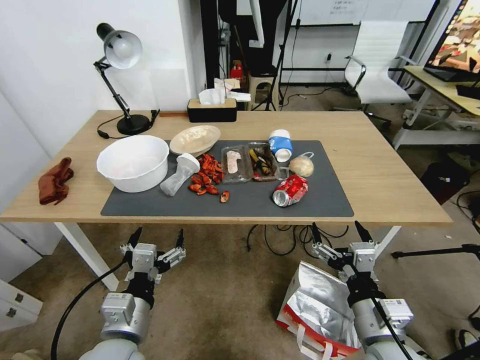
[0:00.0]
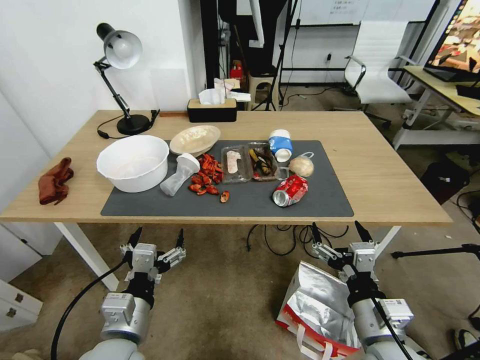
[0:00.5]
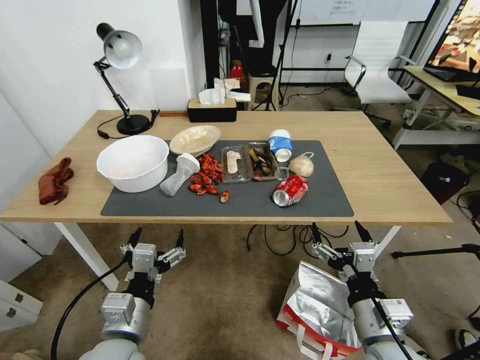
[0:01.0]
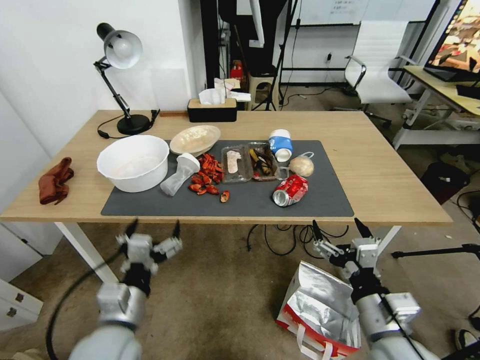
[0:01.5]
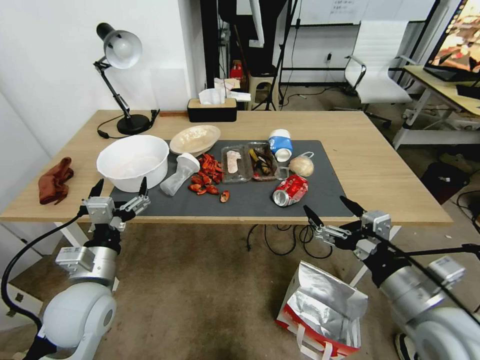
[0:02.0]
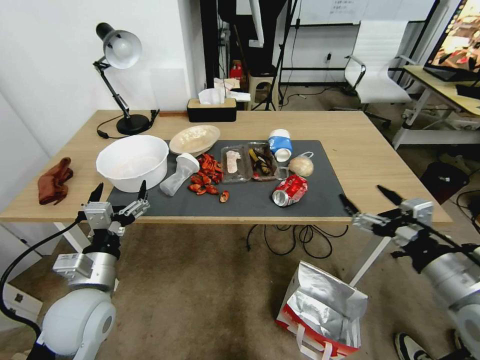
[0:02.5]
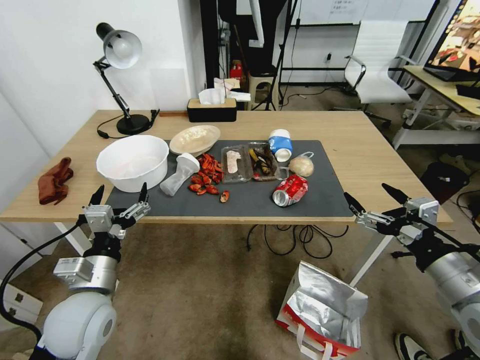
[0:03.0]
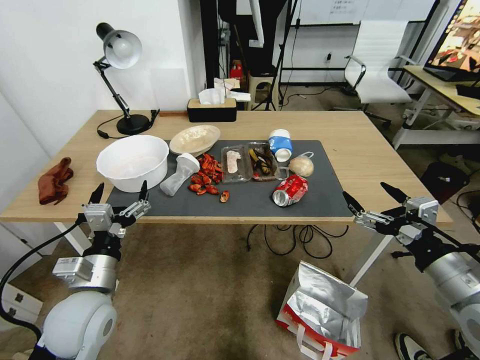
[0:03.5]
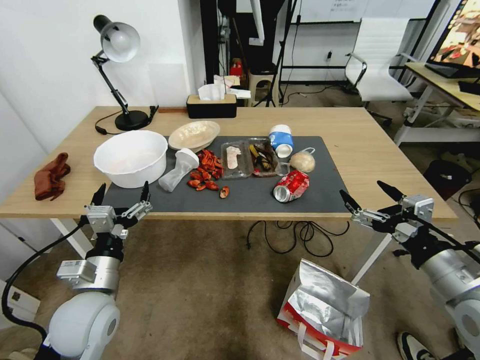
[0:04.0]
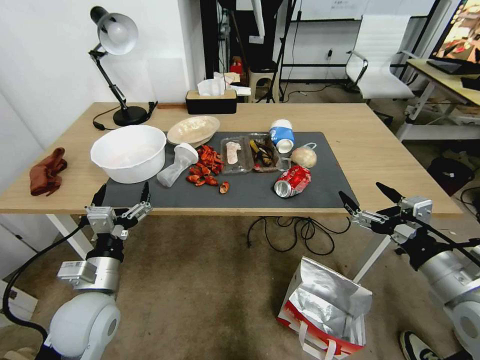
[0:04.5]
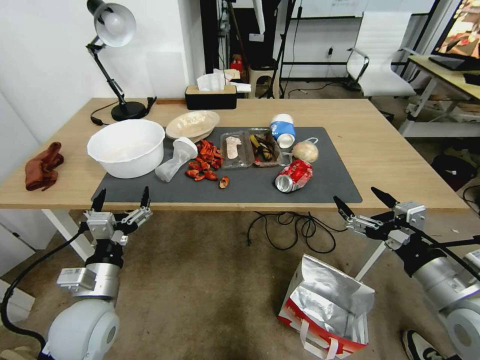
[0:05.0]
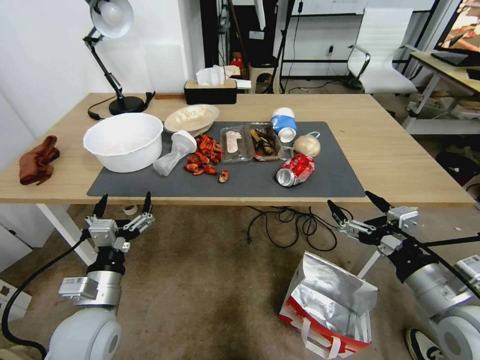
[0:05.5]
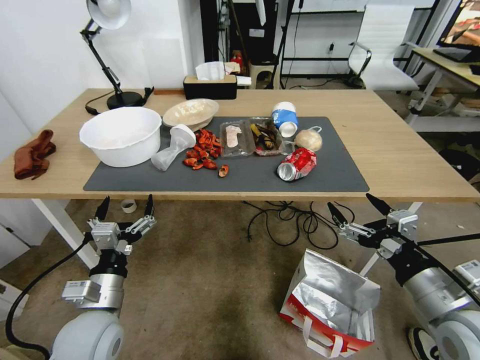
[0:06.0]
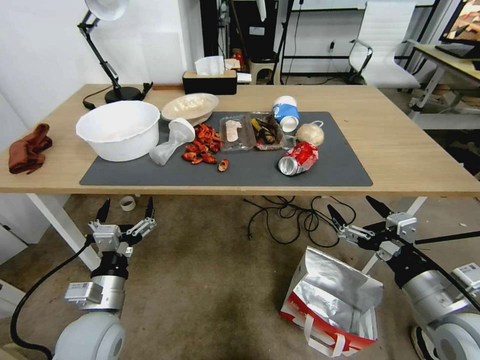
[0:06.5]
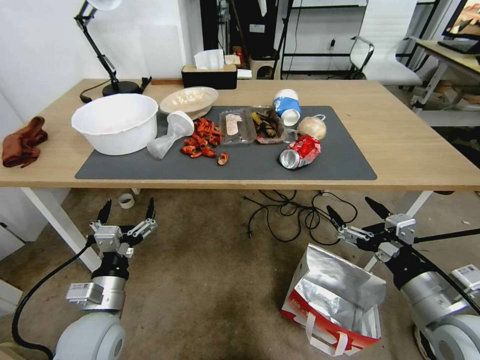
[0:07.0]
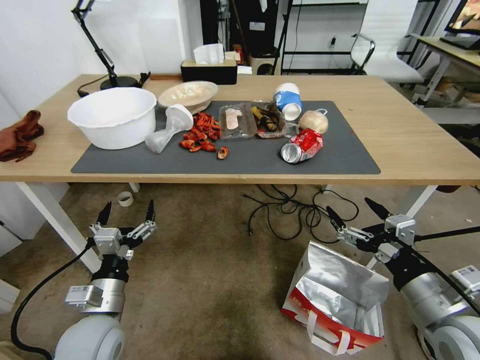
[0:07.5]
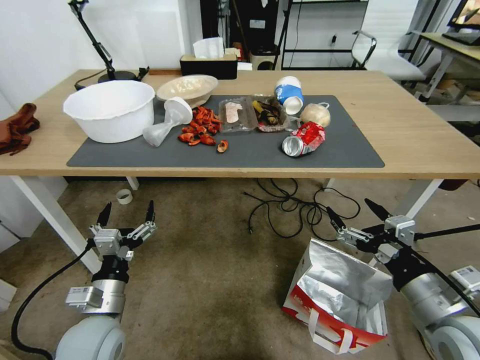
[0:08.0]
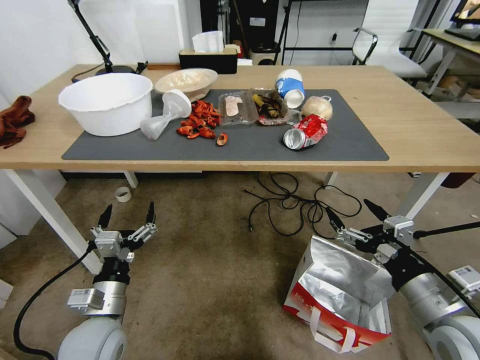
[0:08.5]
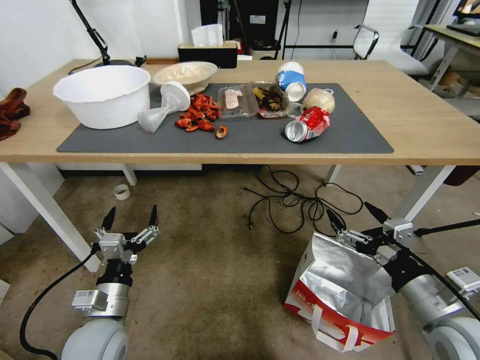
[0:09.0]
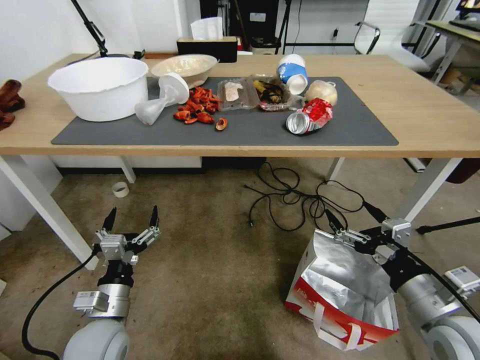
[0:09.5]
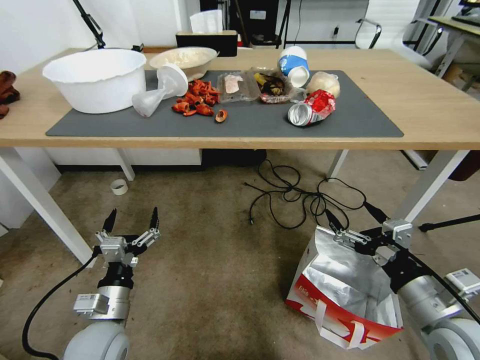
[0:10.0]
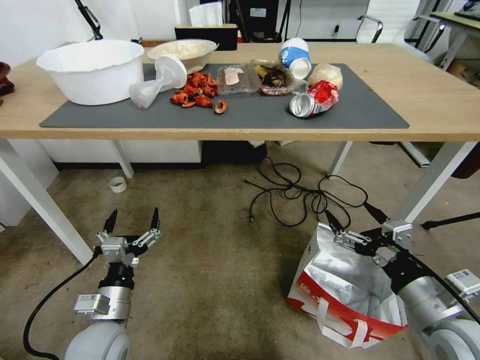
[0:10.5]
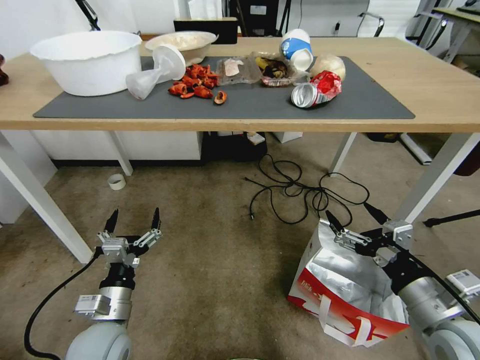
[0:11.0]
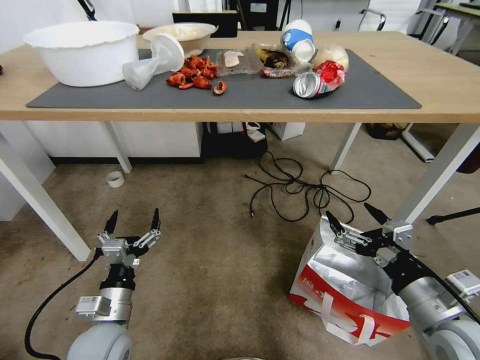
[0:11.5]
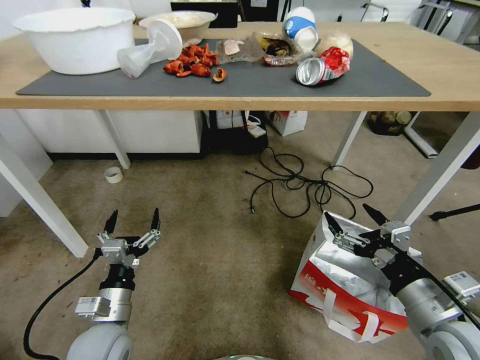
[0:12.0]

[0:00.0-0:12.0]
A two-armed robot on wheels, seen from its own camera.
Task of the whole recording: Pick up the food delivery bag from the floor and place it on the table.
0:02.0 to 0:04.0: The right gripper is displaced to the right by approximately 5 cm.

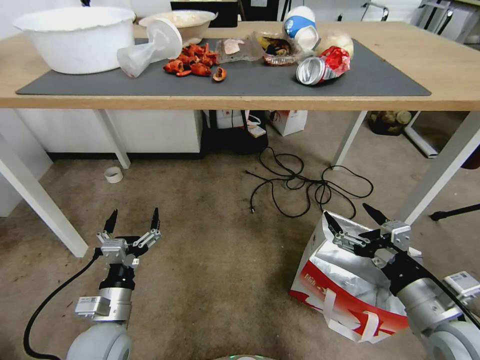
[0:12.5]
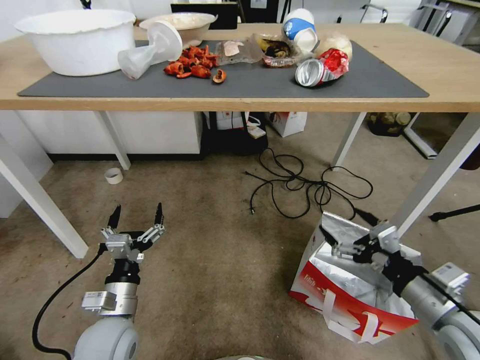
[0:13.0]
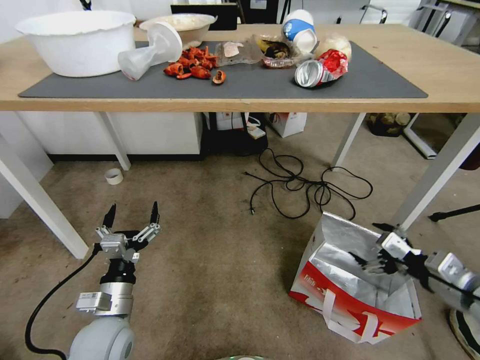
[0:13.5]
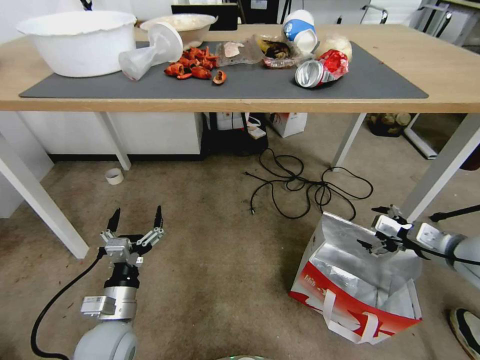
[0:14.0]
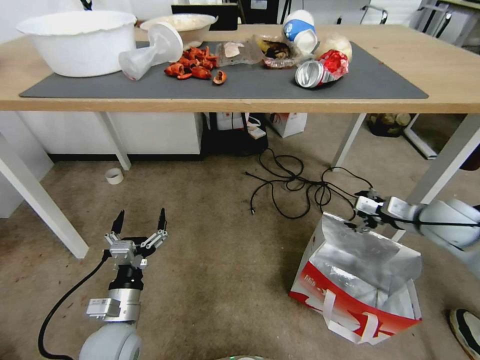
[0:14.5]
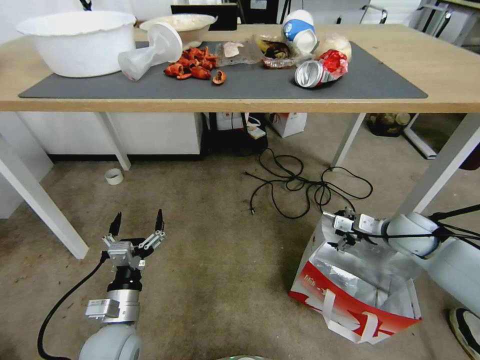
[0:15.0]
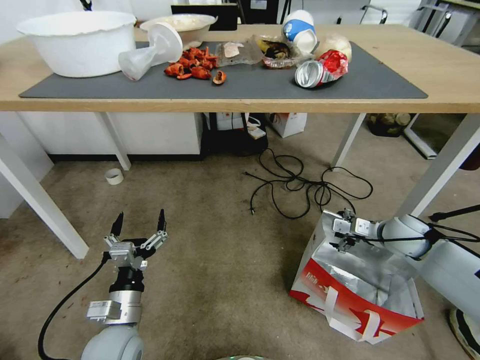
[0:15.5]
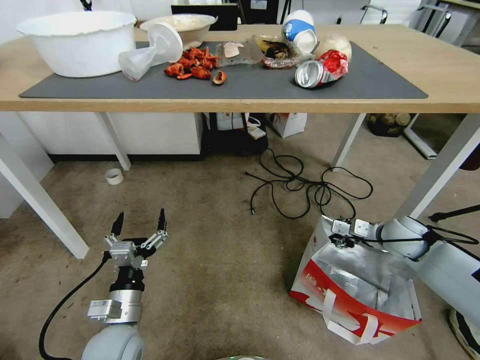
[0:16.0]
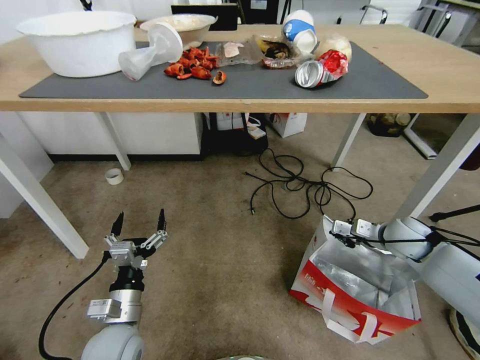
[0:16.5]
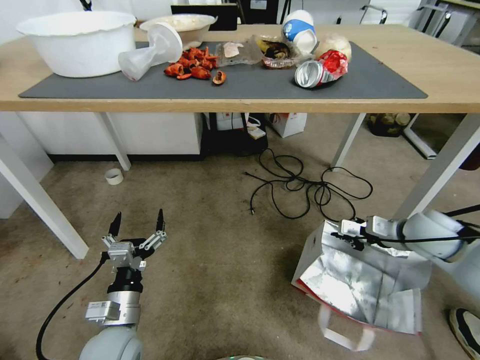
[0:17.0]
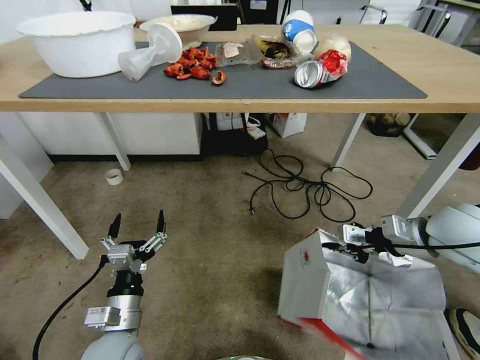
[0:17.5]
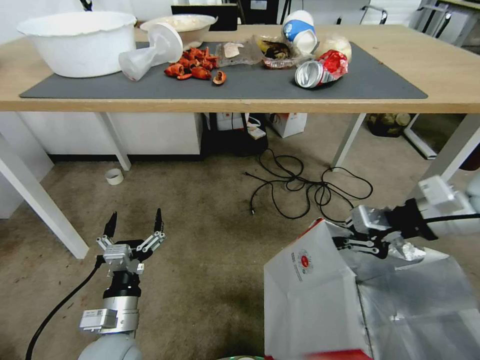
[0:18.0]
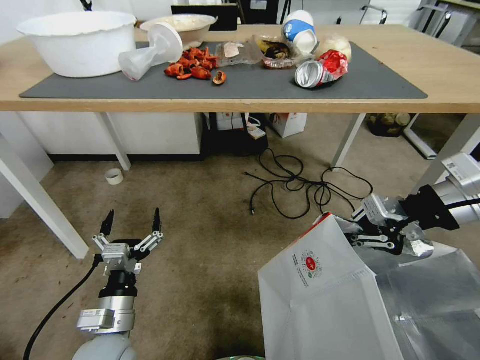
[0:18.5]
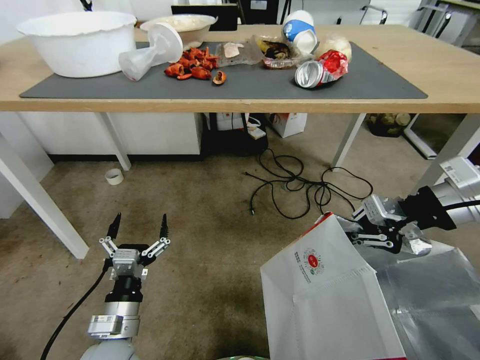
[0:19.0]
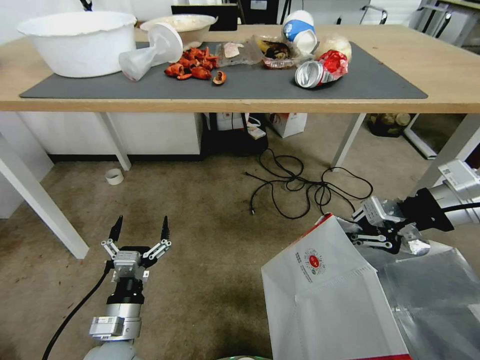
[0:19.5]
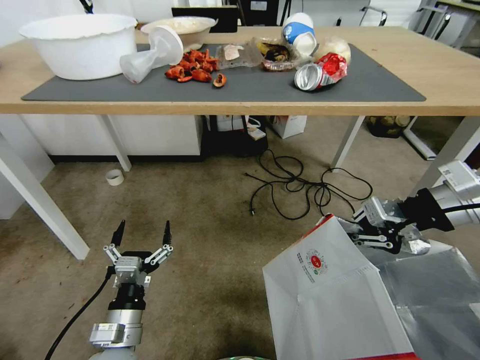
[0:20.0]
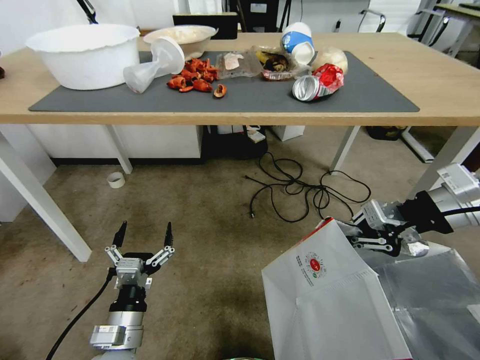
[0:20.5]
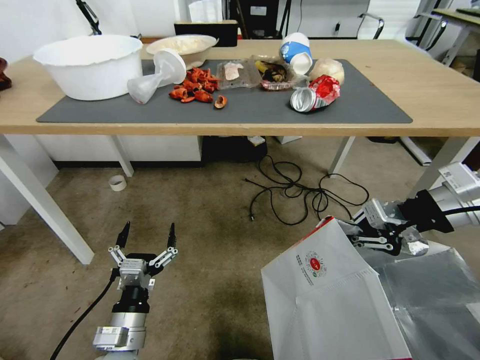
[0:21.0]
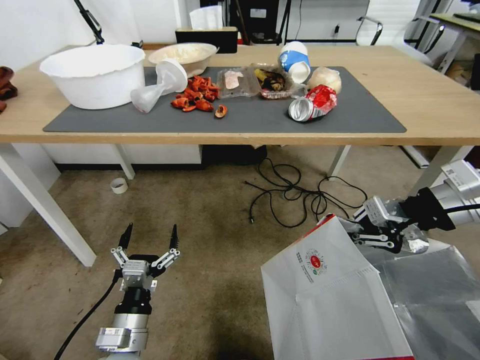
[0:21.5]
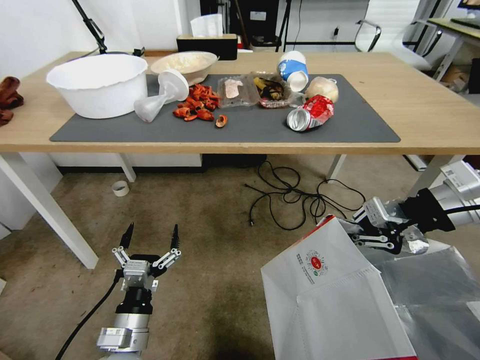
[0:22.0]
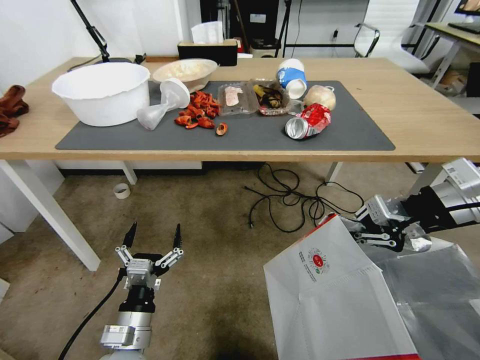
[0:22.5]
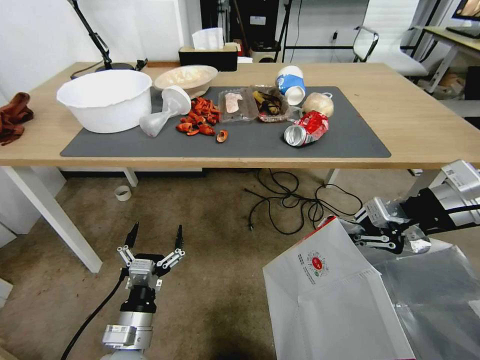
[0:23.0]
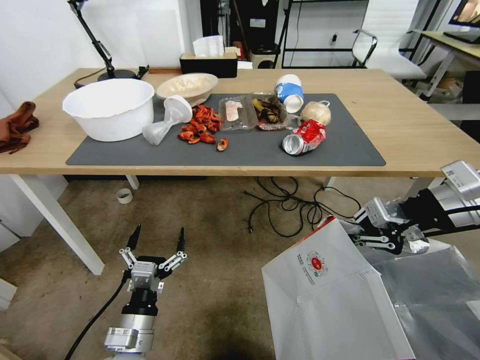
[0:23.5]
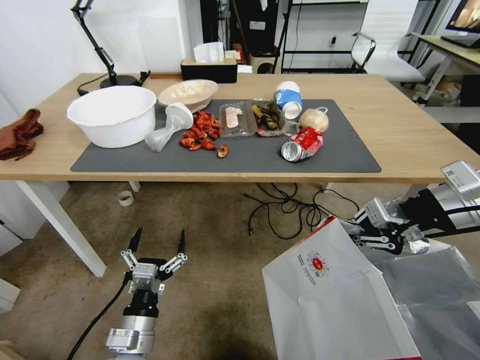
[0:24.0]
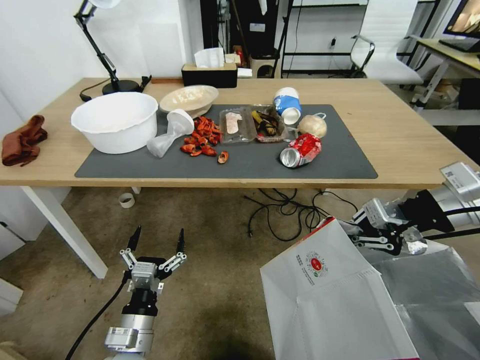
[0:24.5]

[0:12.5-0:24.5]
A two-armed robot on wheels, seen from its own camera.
Task of the whole recording: Pick up the food delivery bag from the floor and place it on the table.
0:12.5 to 0:14.5: The right gripper heads forward and to the right, covering some 25 cm.
0:14.5 to 0:16.5: The right gripper travels downward by about 10 cm, and closes its fingers.
0:16.5 to 0:18.5: The right gripper travels upward by about 30 cm.

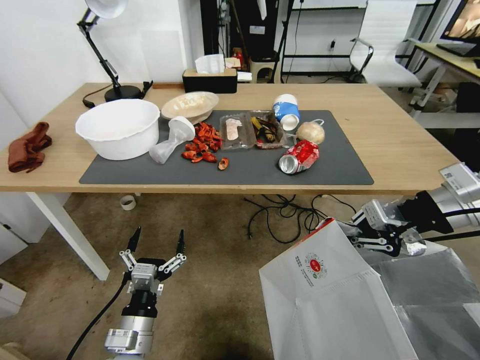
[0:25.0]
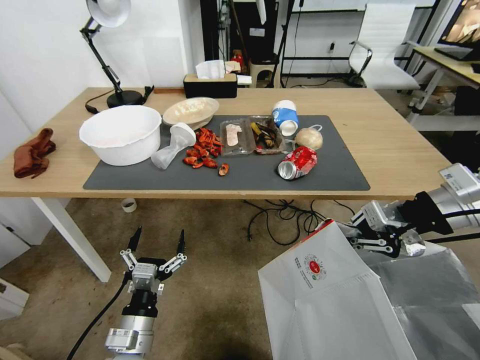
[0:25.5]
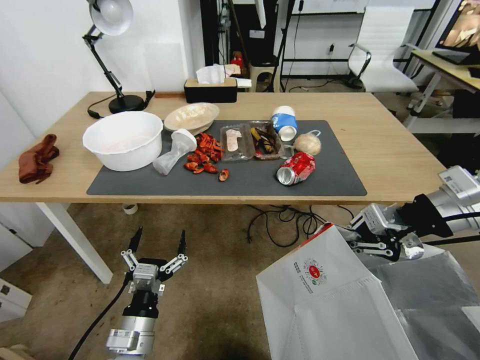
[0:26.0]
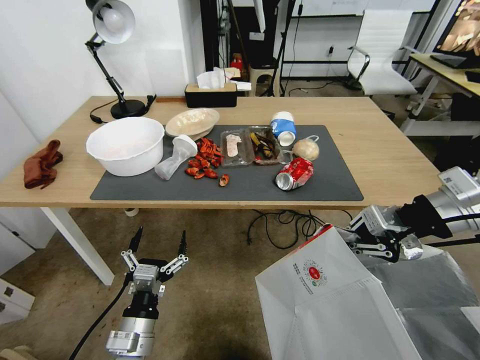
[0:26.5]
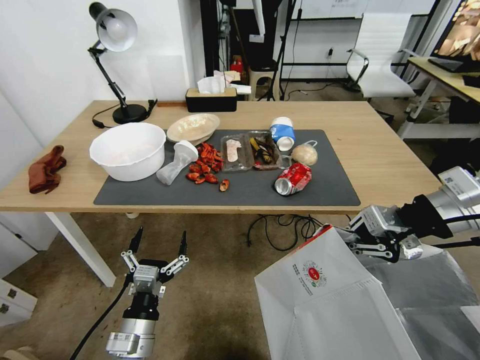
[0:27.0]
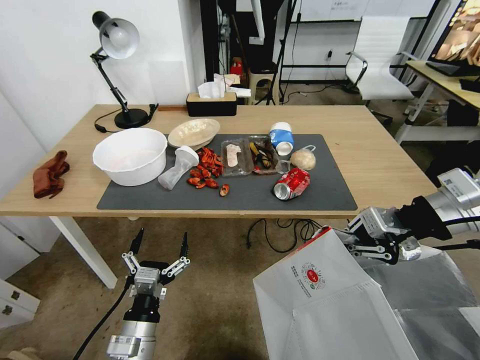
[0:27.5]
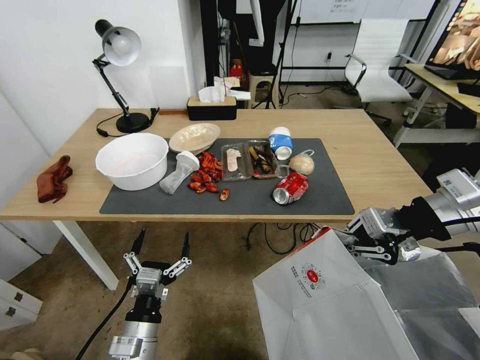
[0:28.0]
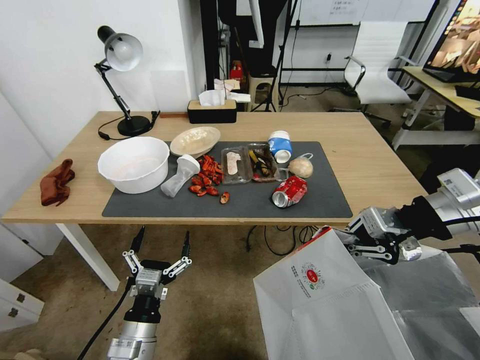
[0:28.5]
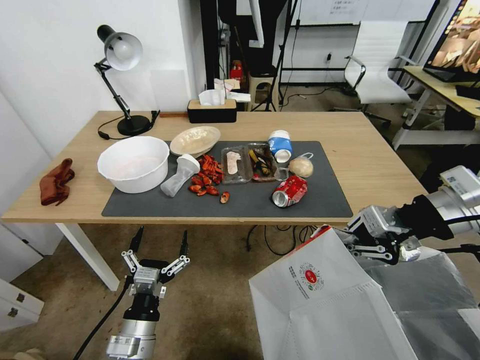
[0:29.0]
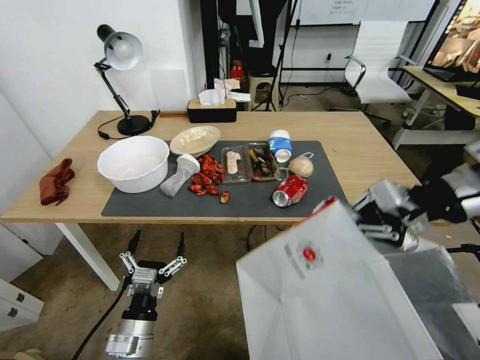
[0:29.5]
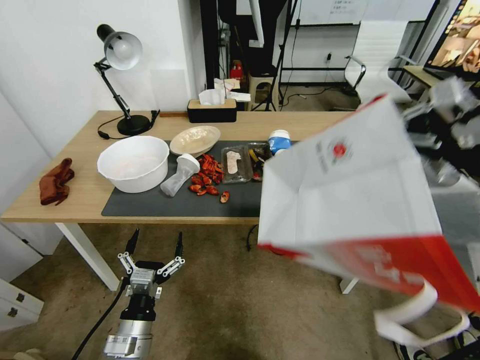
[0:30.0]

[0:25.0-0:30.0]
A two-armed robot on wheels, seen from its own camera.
Task of the whole recording: Pick up the food delivery bag from the floor and place it on the table.
0:27.5 to 0:30.0: The right gripper heads upward and to the right, covering roughly 15 cm.
